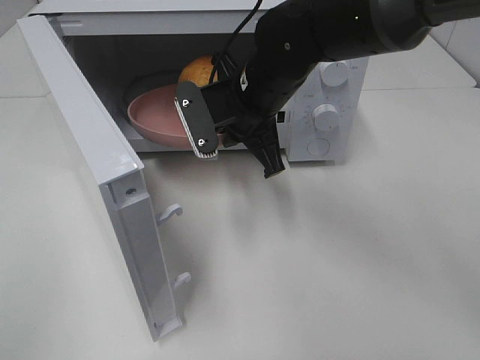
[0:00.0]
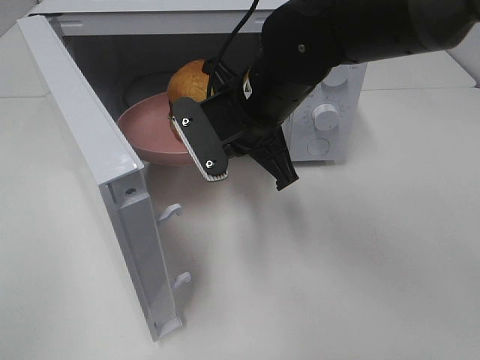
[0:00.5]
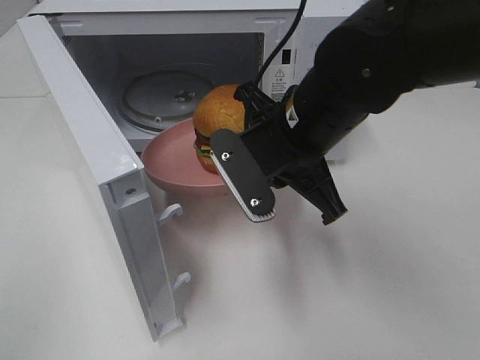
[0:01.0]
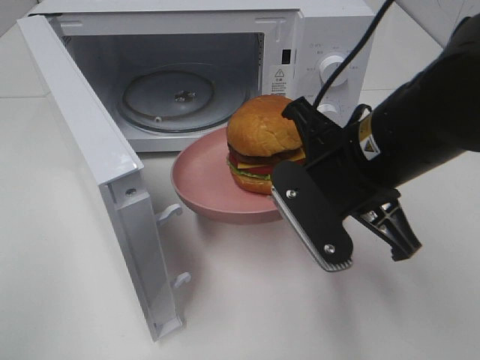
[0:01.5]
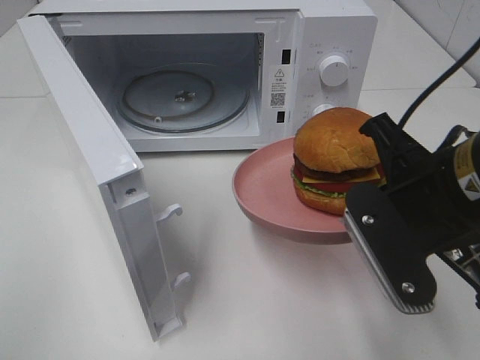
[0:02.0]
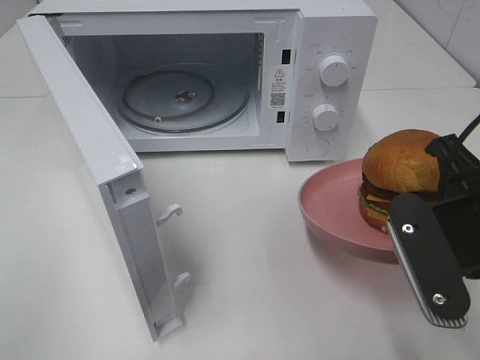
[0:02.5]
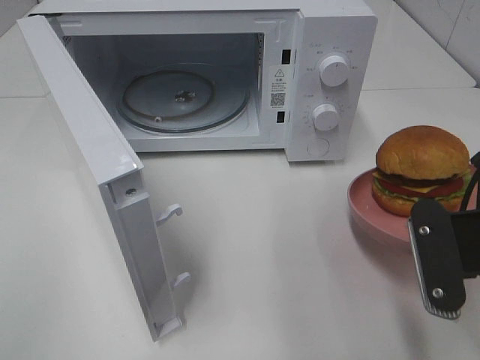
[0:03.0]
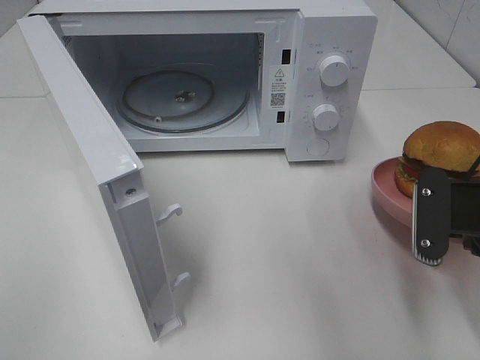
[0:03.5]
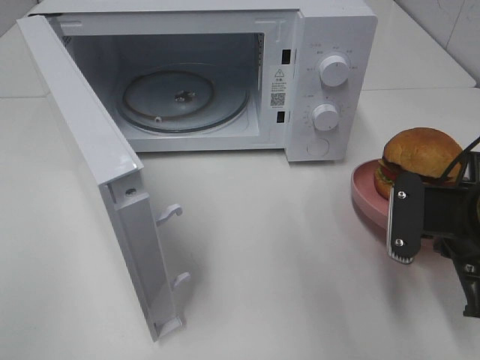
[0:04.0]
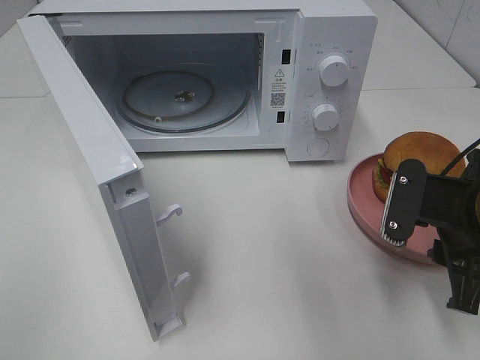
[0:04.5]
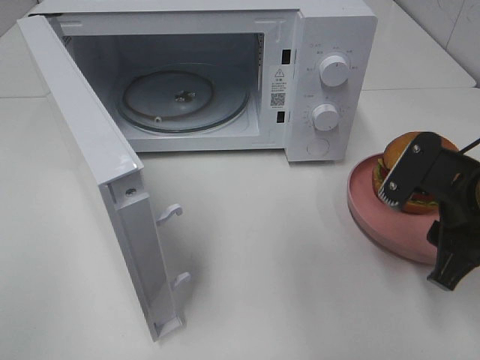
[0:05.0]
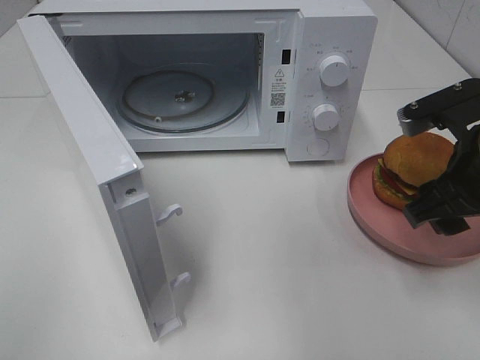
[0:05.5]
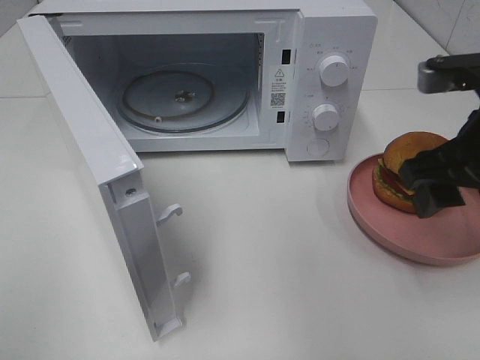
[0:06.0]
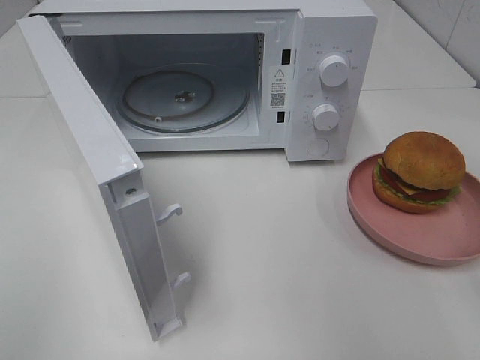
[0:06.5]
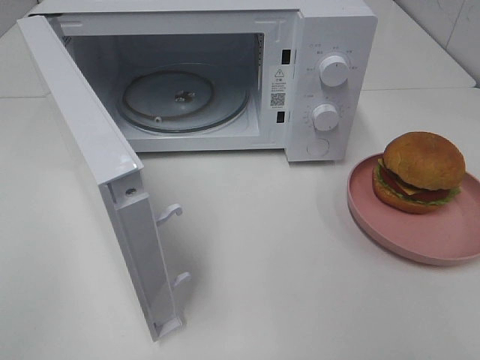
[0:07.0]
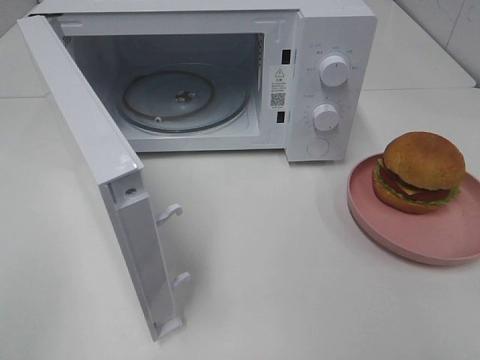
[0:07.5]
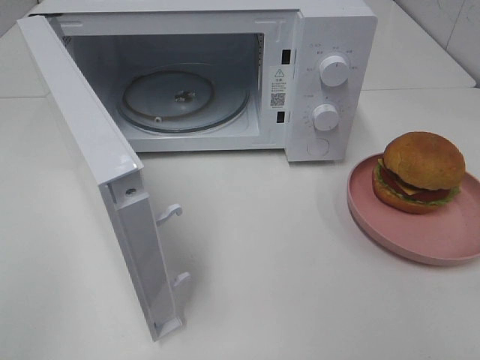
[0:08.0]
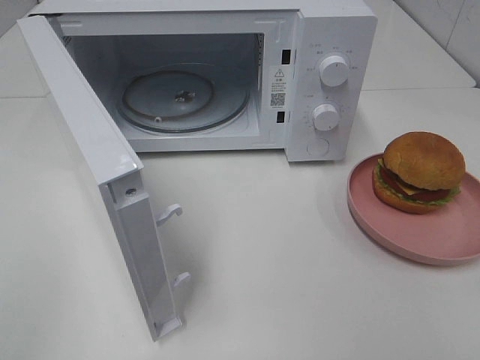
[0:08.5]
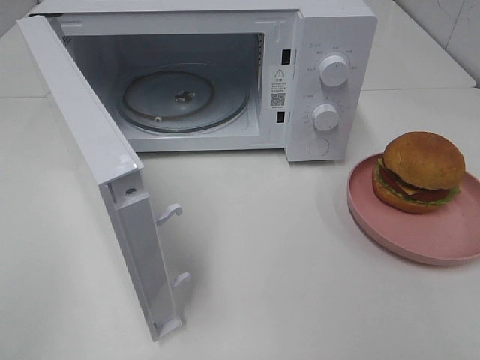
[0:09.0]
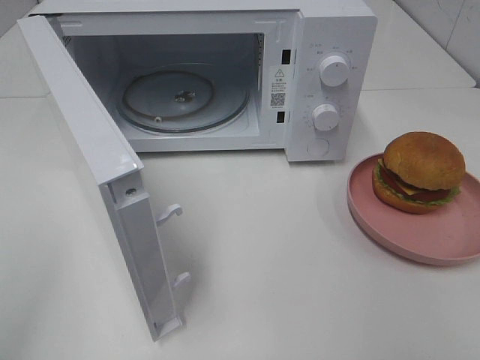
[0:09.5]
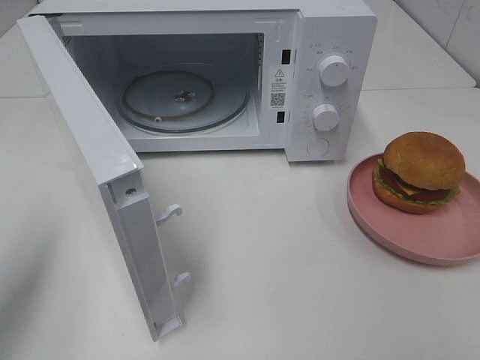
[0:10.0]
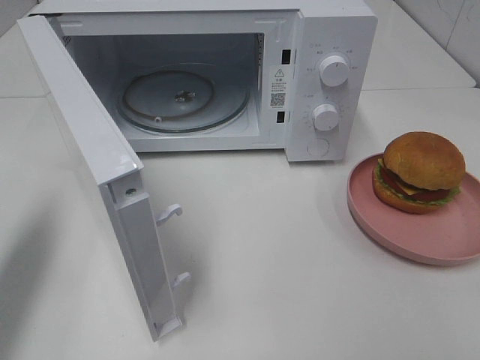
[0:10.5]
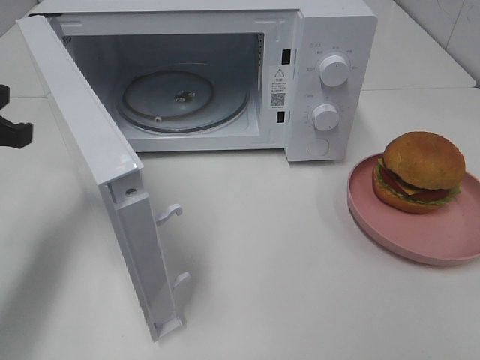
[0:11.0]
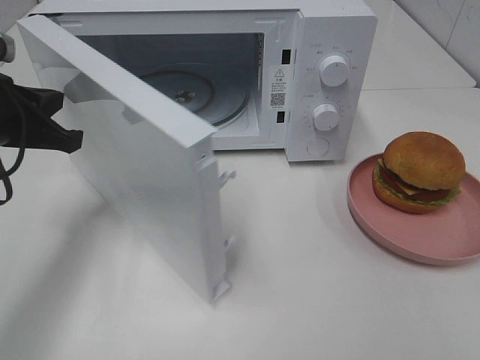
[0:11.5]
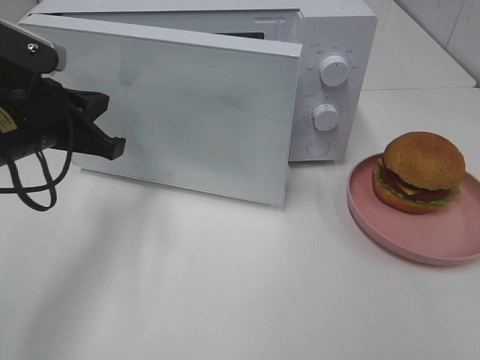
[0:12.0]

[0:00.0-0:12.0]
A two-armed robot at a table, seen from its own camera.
Task of the whole recording: Heat the burger.
Step, 0:00.0 to 0:04.0: Right hand: place the plate on the table.
0:00.0 to 0:02.0: The right gripper heads backward and to the right, covering about 20 cm.
0:02.0 to 0:04.0: The right gripper heads downward and to the right, covering about 10 cm.
0:04.0 to 0:06.0: The right gripper moves upward, some 10 cm, and opens up.
0:06.0 to 0:08.0: The right gripper goes roughly 25 cm backward.
0:08.0 to 0:10.0: The left gripper heads forward, covering some 15 cm.
0:10.0 to 0:12.0: The left gripper heads forward, downward and to the right, covering some 20 cm.

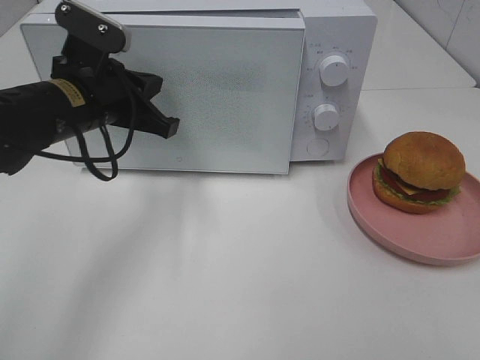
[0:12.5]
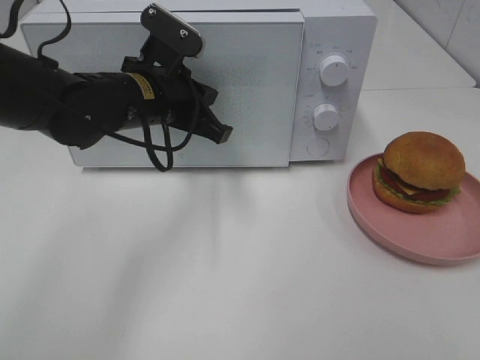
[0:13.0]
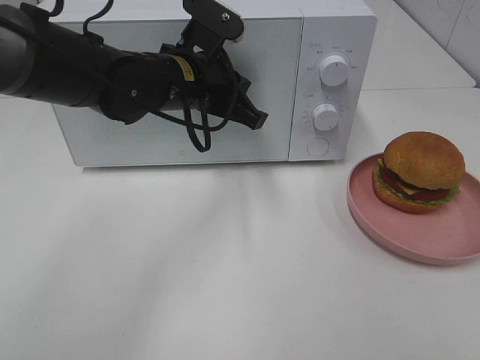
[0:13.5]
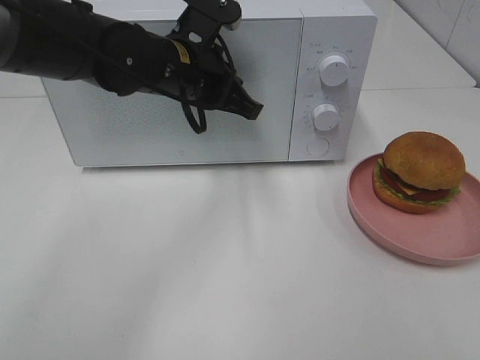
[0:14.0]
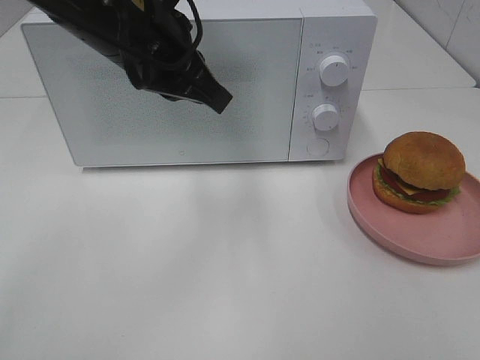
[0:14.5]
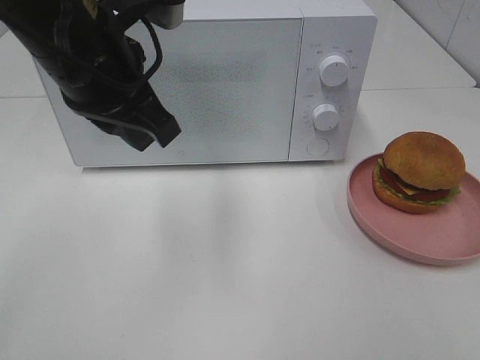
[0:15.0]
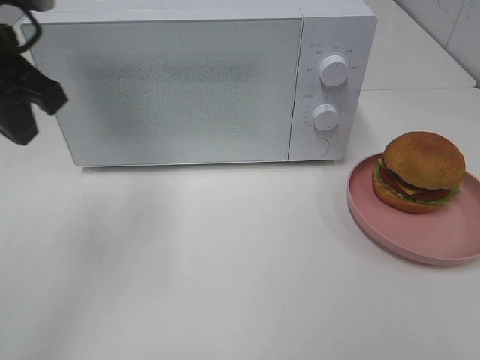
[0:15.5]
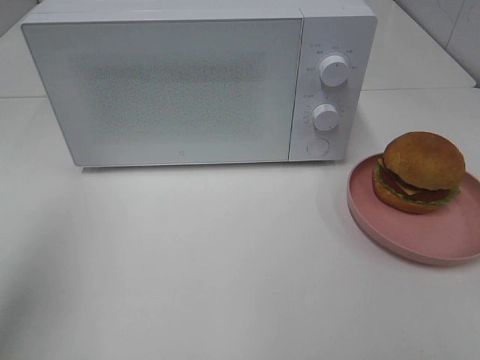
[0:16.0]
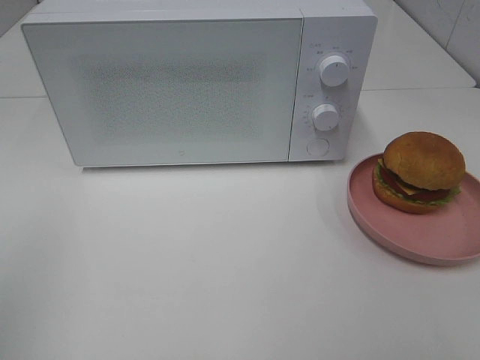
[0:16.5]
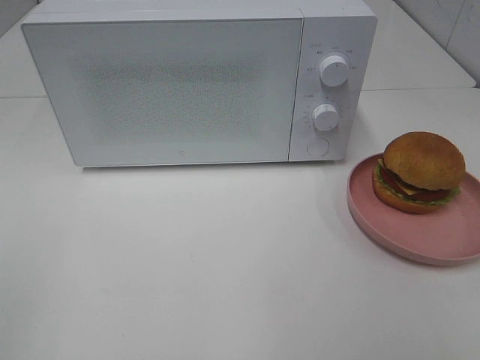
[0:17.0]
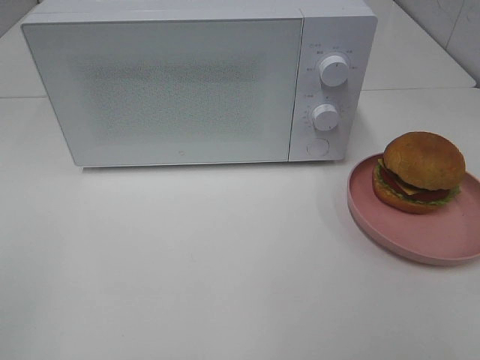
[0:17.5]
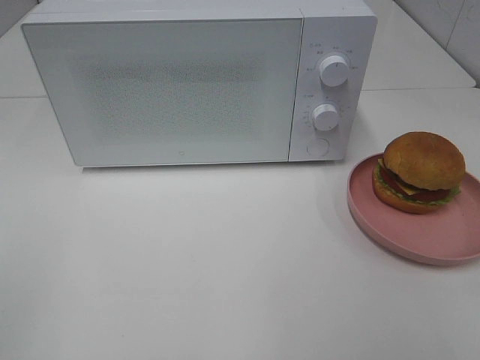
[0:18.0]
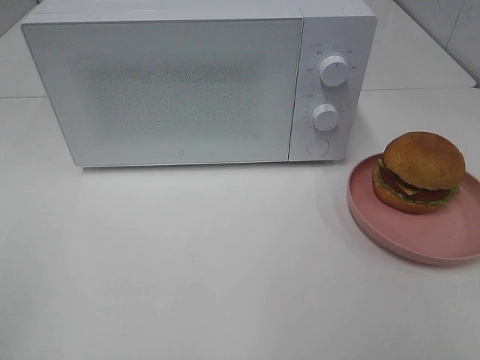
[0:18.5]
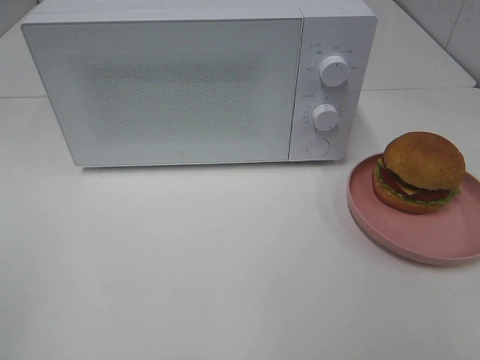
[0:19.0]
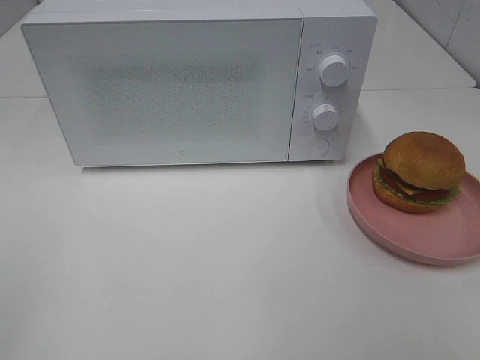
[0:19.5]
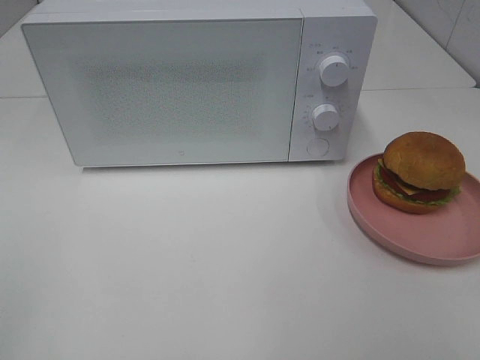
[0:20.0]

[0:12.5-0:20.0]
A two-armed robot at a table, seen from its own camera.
Task of the whole recording: Heat the burger.
0:12.5 to 0:14.5: The left gripper shifts approximately 10 cm upward and to the right, and opens.
0:14.5 to 0:16.5: The left gripper moves backward and to the left, roughly 35 cm, and closes up.

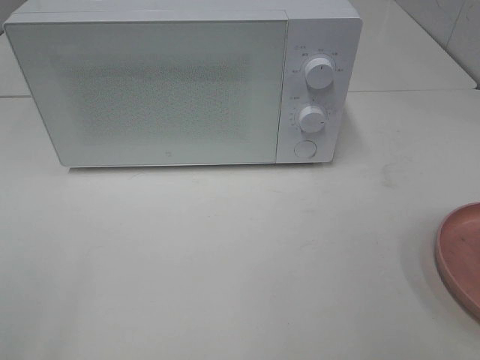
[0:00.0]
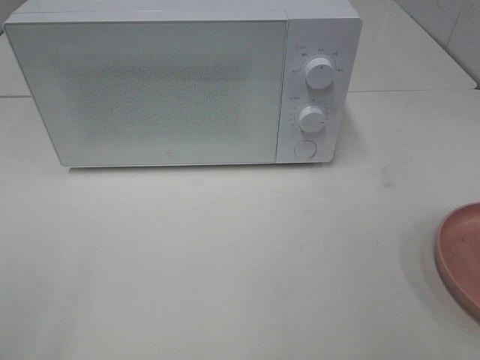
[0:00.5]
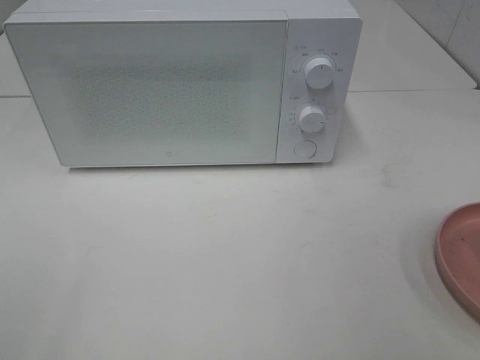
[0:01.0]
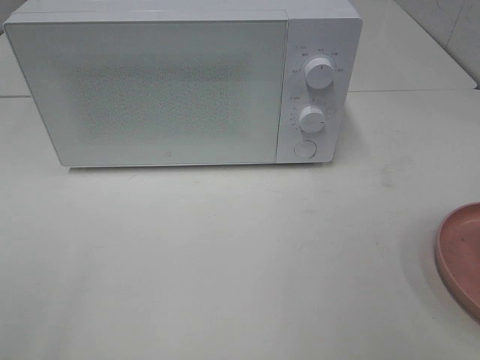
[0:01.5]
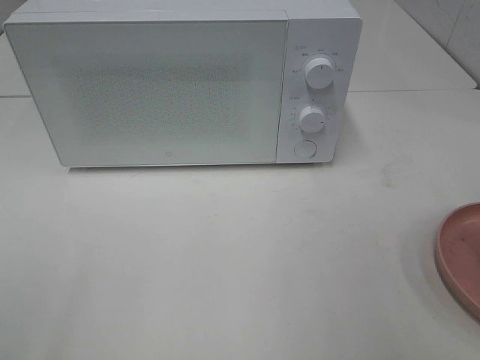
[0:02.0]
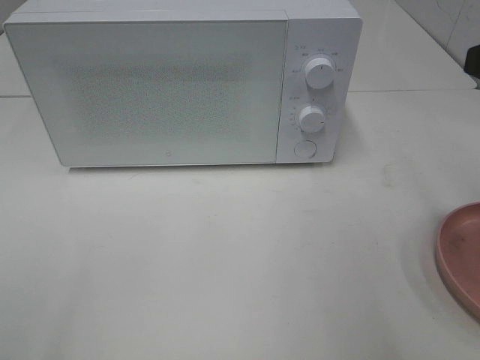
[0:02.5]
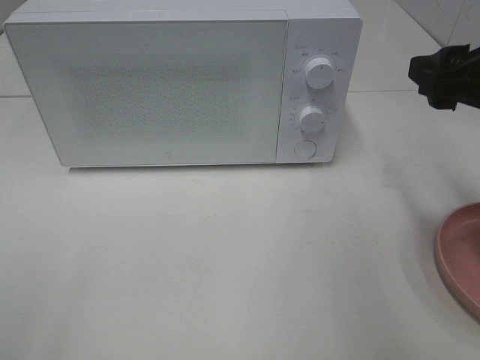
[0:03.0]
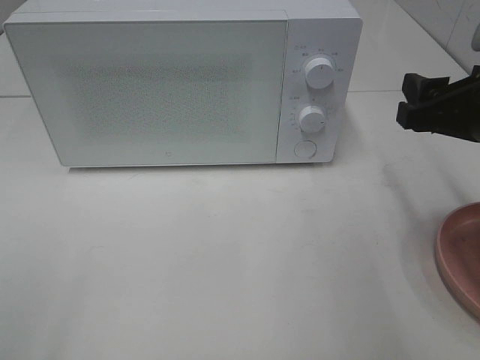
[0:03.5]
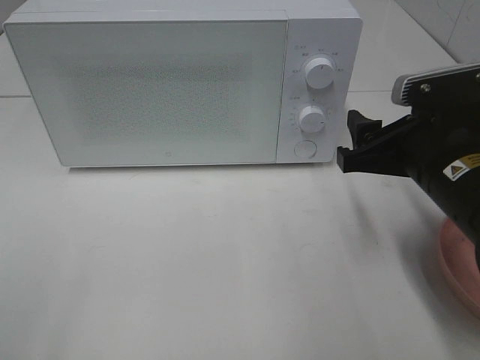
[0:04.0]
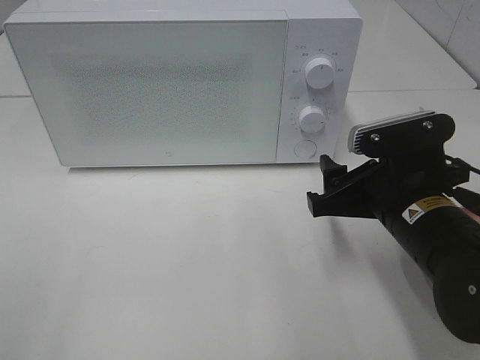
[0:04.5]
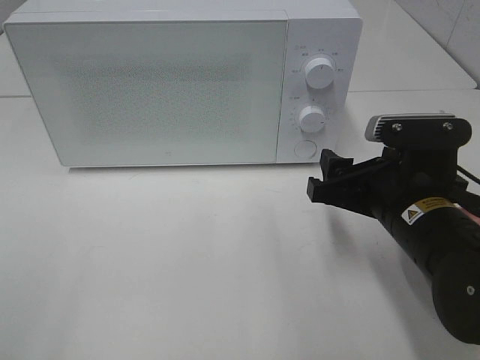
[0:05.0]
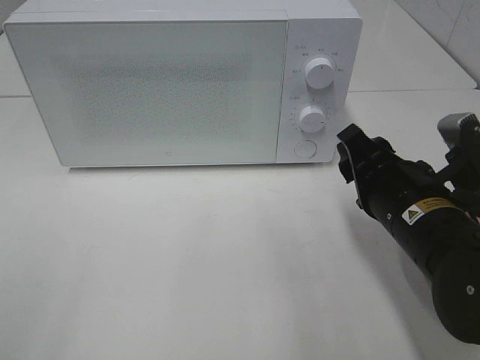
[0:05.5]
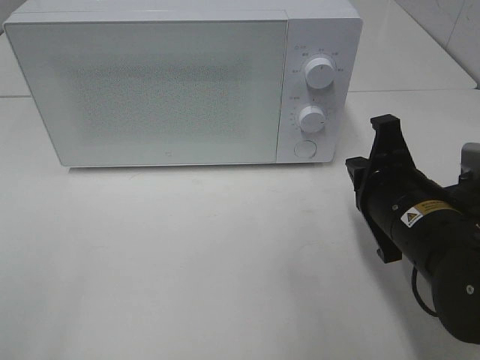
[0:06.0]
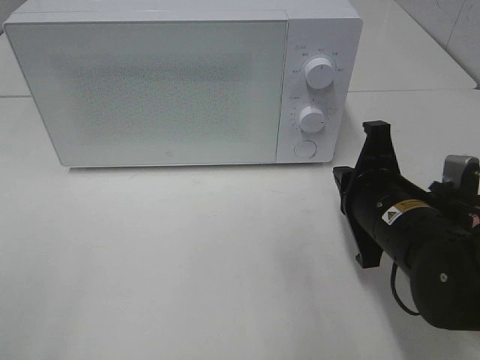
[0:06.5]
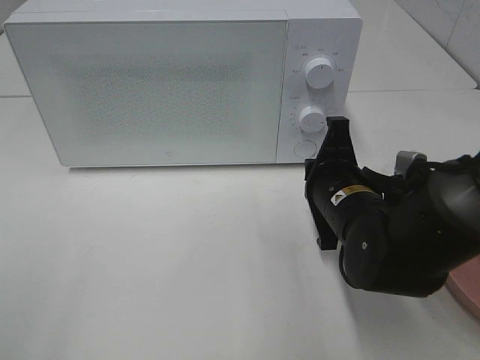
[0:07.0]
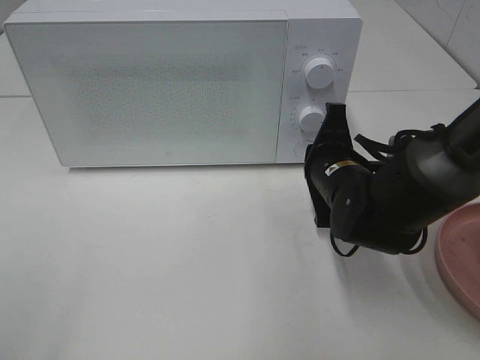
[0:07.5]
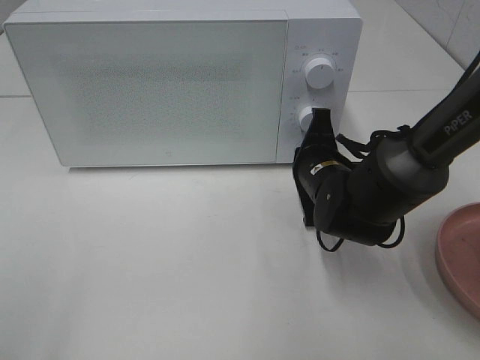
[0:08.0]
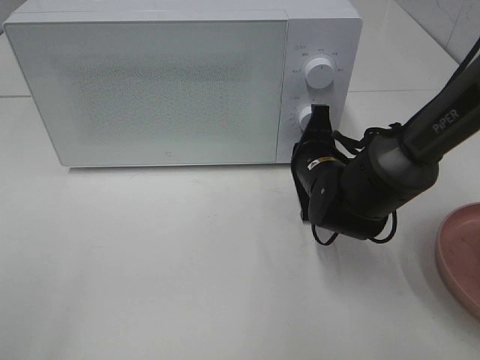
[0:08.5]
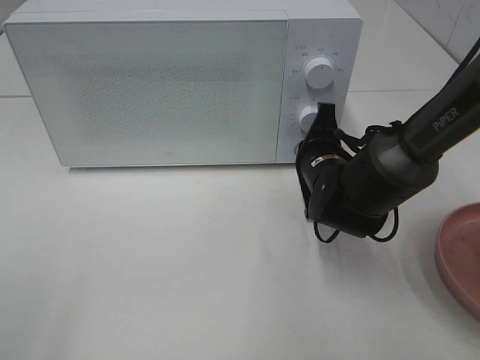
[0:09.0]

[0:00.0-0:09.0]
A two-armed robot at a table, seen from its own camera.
Task of the whole recording: Heat the burger.
0:02.0 to 0:04.5: The right gripper travels downward, to the left and forward by approximately 25 cm.
0:04.5 to 0:07.0: The right gripper changes place by some 5 cm, and closes.
0:07.0 to 0:09.0: The right gripper travels forward by about 10 cm.
